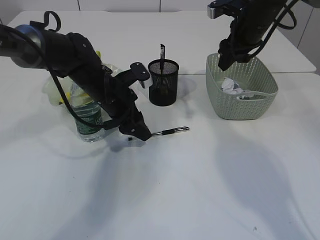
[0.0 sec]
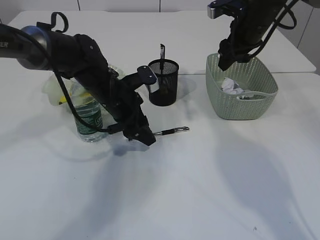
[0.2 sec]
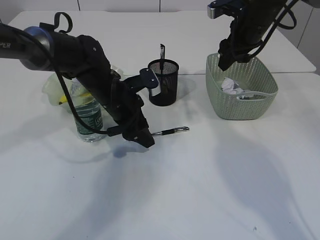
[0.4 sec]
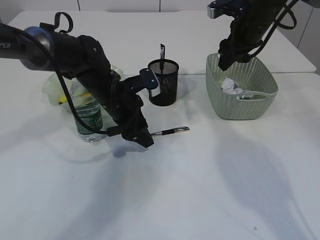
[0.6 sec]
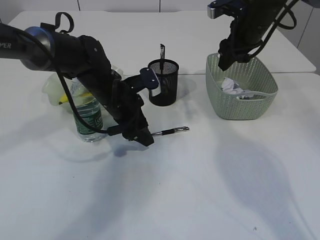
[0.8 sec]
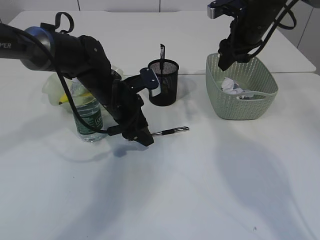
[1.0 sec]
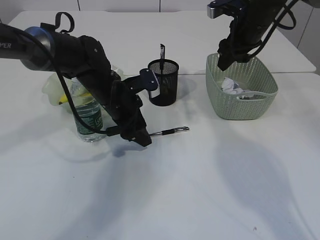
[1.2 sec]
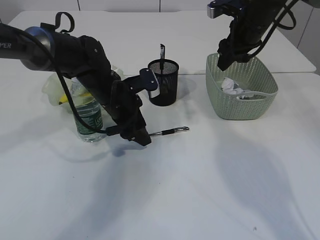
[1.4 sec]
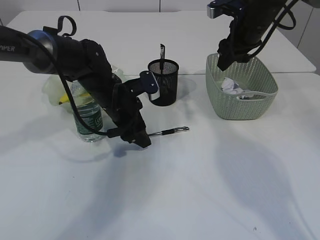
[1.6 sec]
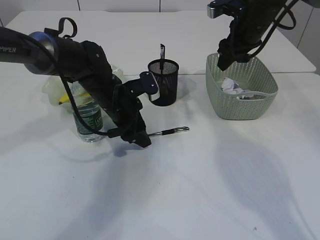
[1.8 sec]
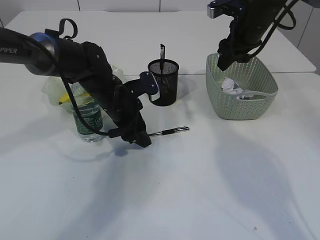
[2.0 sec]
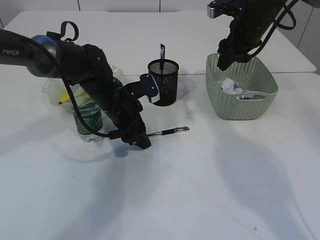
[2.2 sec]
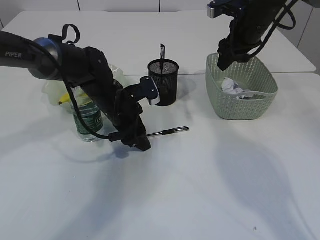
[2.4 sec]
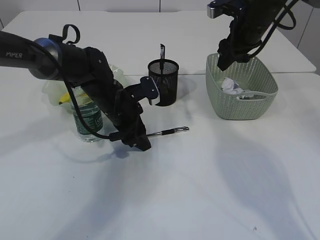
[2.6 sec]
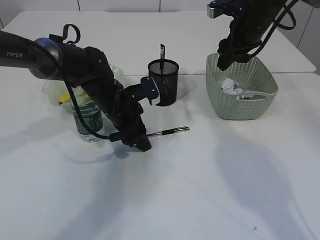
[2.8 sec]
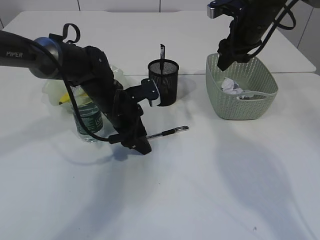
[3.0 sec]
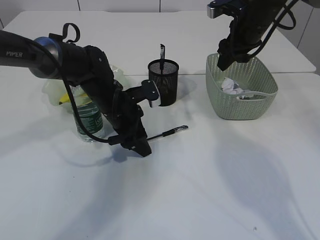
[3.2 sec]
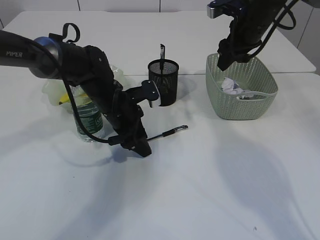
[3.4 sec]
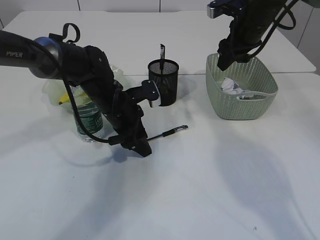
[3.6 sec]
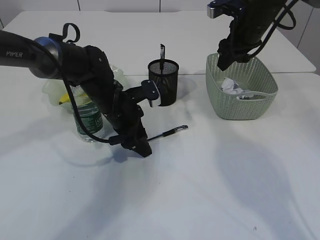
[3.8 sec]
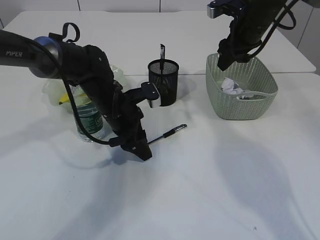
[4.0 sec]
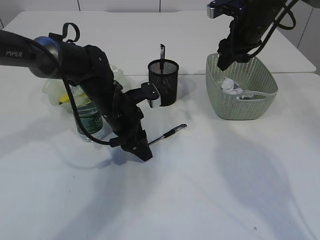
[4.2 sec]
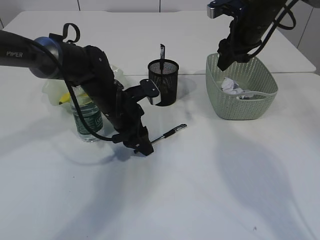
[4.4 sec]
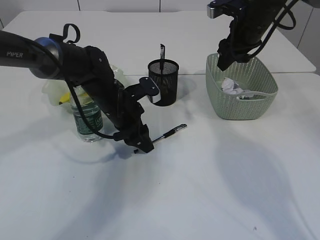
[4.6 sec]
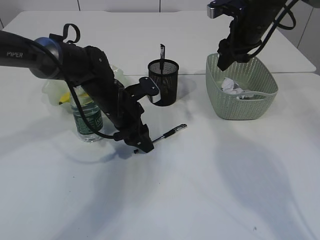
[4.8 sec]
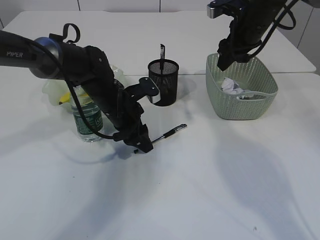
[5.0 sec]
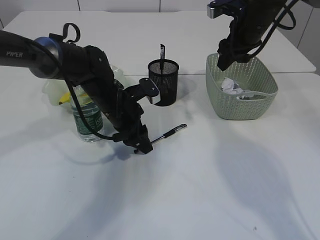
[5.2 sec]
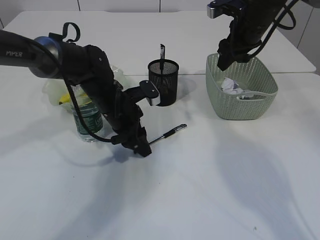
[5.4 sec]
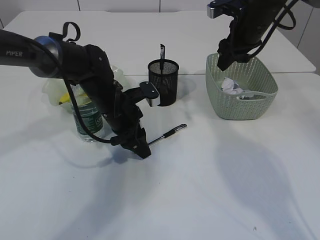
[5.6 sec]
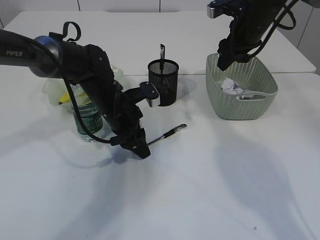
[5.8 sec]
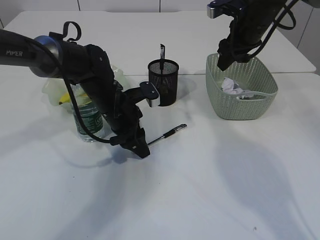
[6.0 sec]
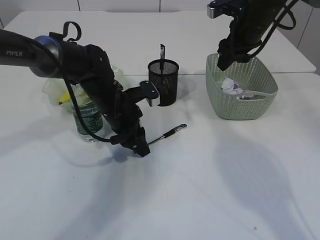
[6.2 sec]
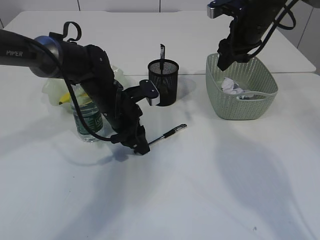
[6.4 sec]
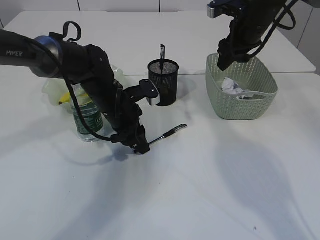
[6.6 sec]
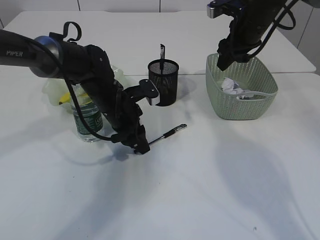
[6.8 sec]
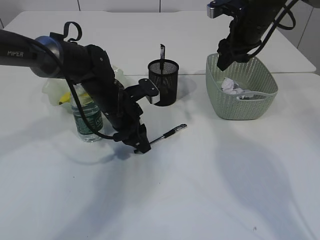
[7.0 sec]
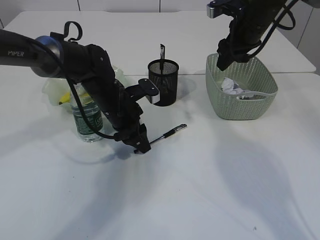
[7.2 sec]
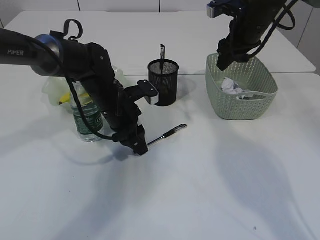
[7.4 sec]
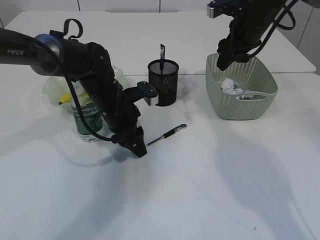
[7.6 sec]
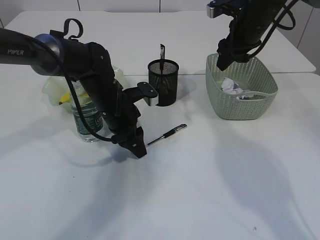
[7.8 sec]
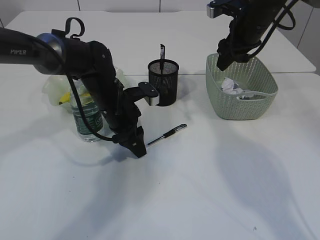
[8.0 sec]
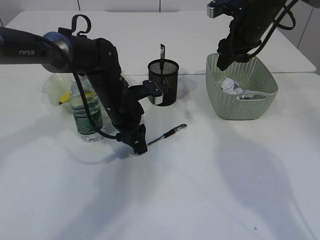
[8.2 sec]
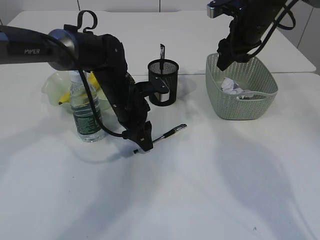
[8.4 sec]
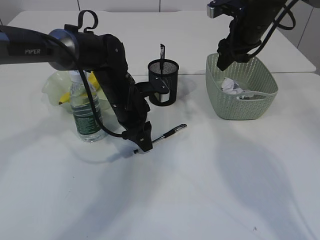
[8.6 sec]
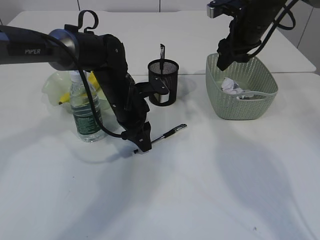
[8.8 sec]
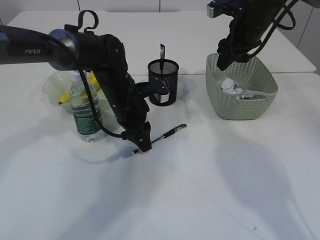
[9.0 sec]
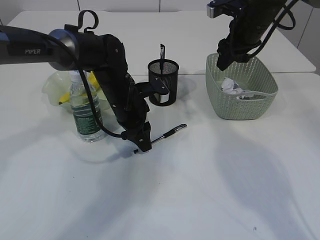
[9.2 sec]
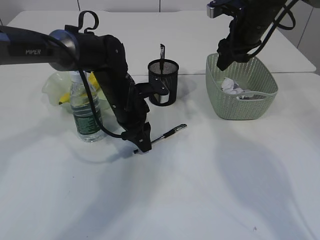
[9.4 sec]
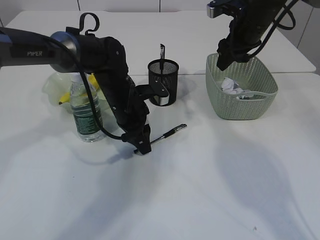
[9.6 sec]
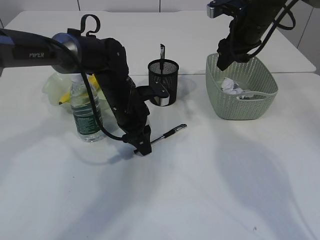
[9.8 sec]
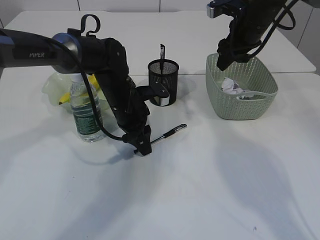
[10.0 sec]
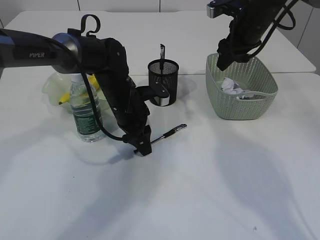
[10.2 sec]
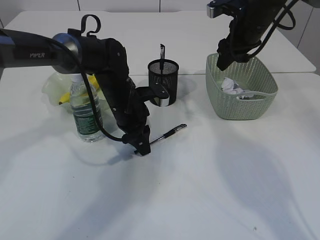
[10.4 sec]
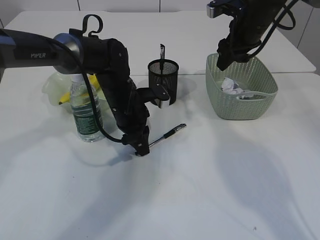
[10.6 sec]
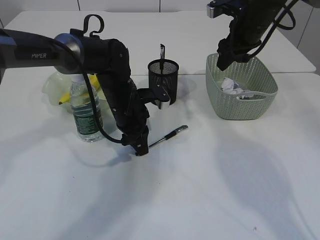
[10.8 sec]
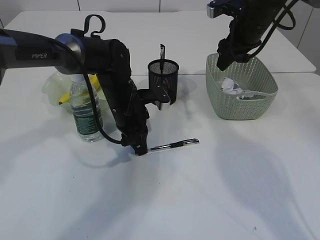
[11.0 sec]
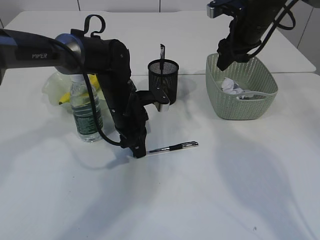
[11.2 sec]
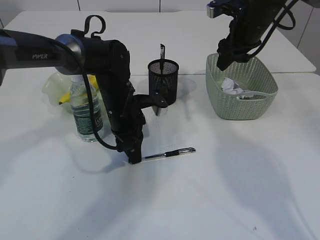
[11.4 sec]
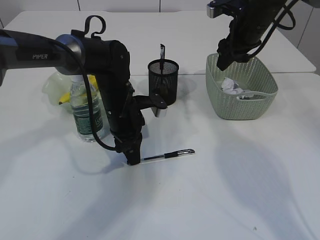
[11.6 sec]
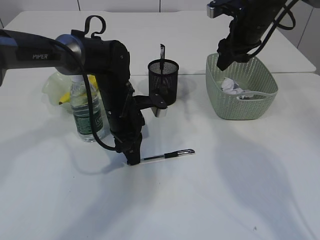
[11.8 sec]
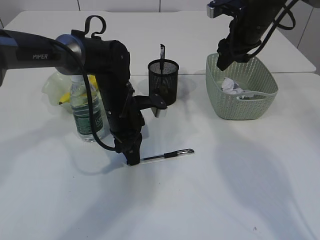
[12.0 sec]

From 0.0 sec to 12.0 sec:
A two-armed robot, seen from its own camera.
From 0.0 sec to 4.4 sec: There are only small adjustments of the grippers.
From 4.4 sec to 6.0 sec: Neither gripper changes place.
From 6.0 sec to 9.0 sec: The grippers move only a little.
From 9.0 sec to 10.4 sec: The two grippers keep their place.
From 10.4 sec to 12.0 sec: There are only small adjustments of the grippers.

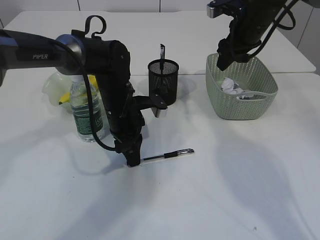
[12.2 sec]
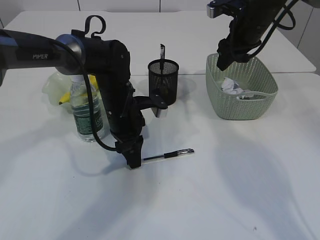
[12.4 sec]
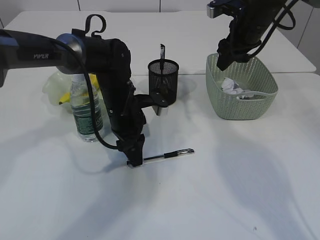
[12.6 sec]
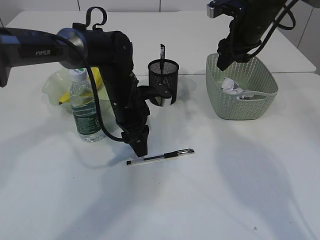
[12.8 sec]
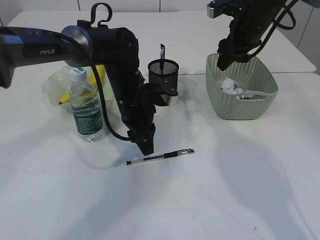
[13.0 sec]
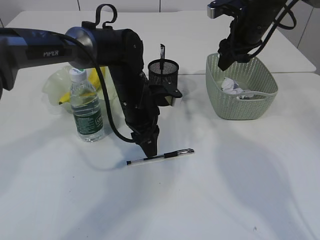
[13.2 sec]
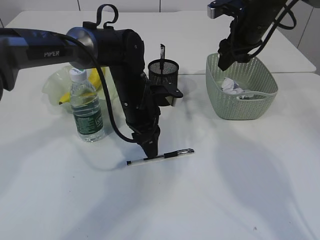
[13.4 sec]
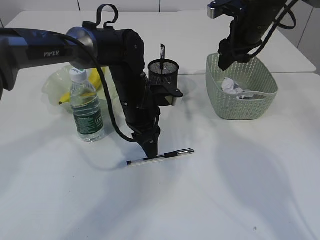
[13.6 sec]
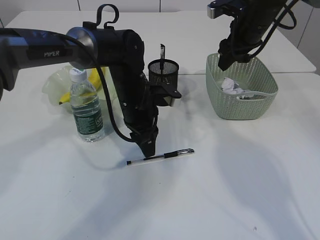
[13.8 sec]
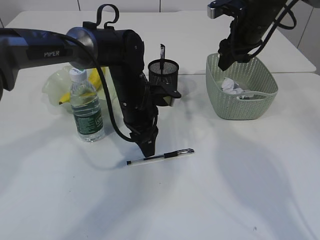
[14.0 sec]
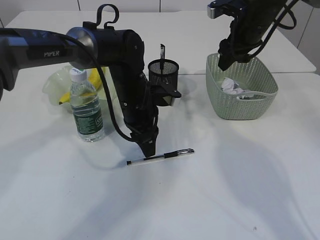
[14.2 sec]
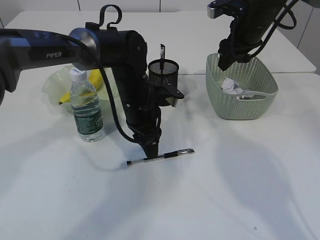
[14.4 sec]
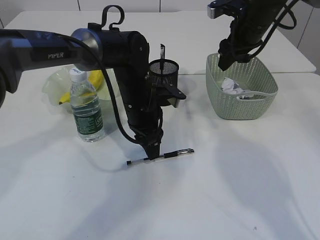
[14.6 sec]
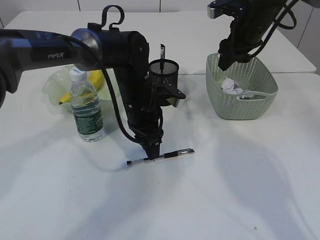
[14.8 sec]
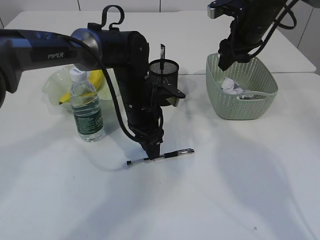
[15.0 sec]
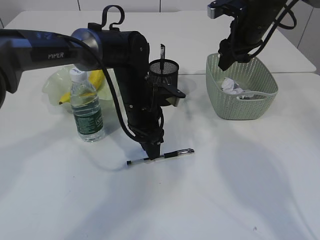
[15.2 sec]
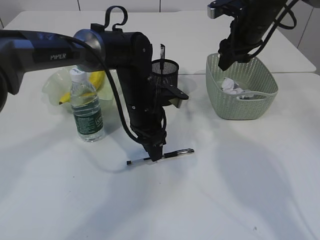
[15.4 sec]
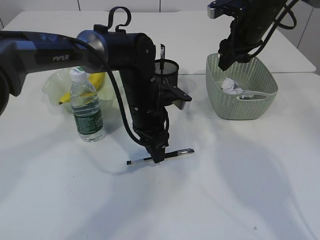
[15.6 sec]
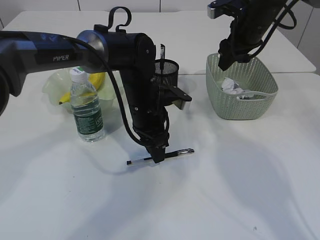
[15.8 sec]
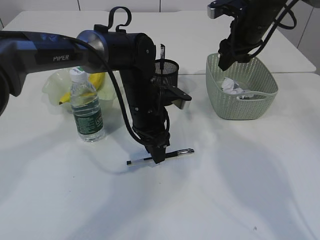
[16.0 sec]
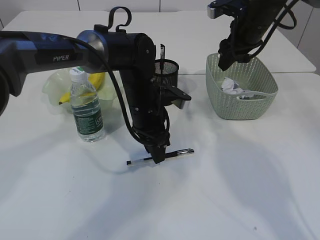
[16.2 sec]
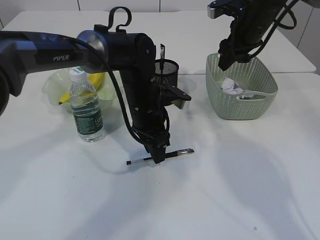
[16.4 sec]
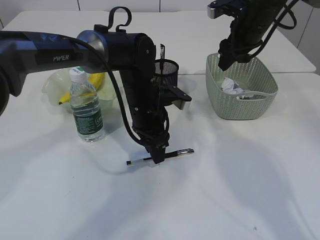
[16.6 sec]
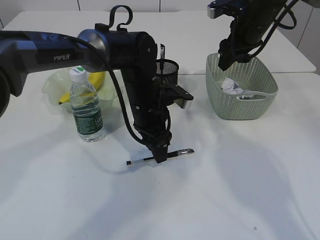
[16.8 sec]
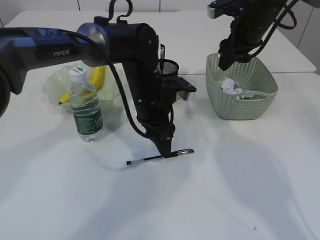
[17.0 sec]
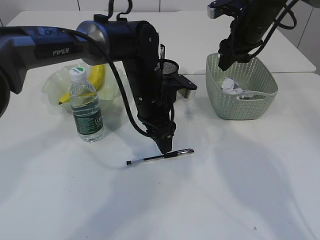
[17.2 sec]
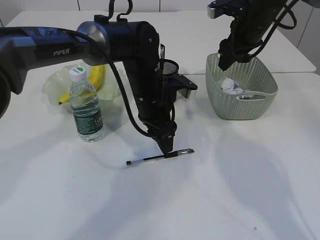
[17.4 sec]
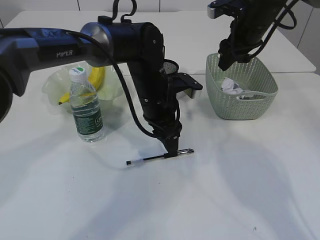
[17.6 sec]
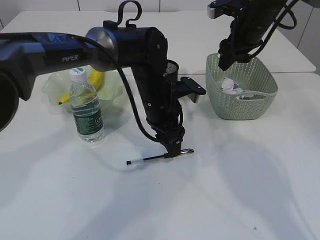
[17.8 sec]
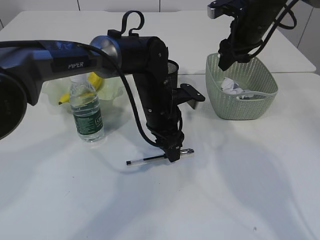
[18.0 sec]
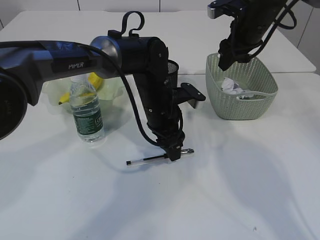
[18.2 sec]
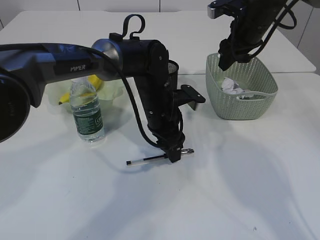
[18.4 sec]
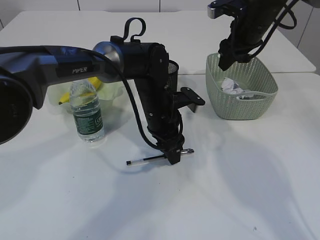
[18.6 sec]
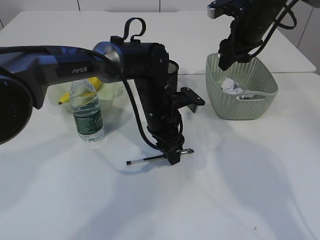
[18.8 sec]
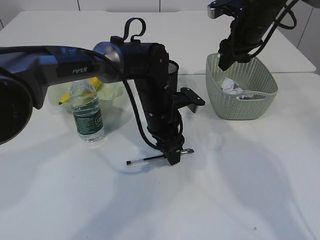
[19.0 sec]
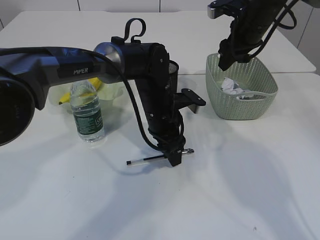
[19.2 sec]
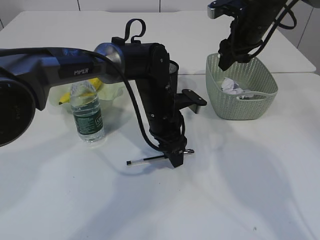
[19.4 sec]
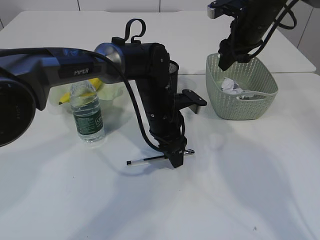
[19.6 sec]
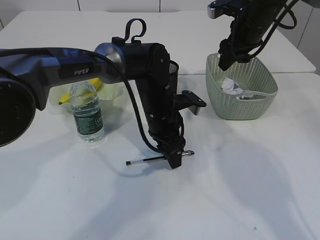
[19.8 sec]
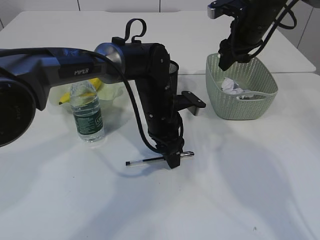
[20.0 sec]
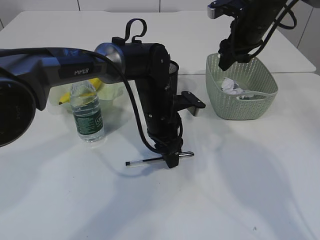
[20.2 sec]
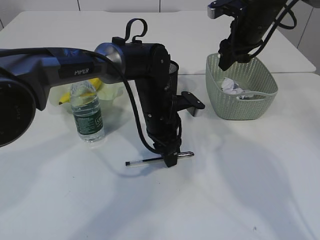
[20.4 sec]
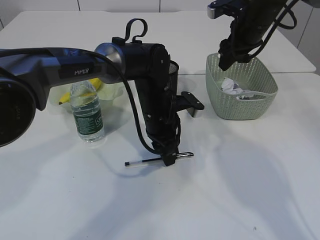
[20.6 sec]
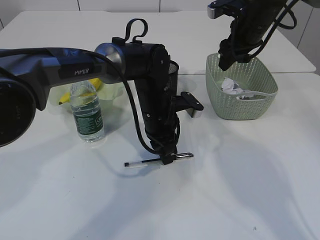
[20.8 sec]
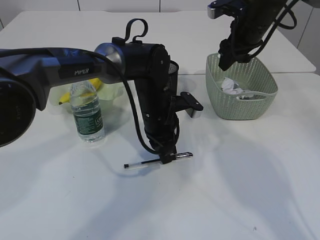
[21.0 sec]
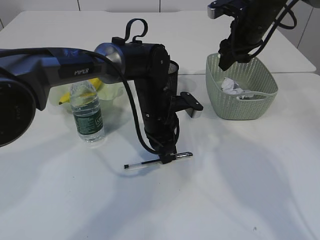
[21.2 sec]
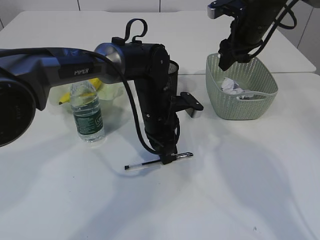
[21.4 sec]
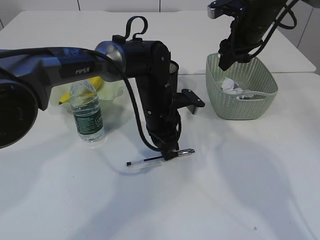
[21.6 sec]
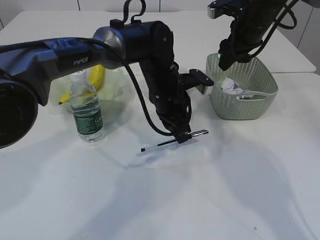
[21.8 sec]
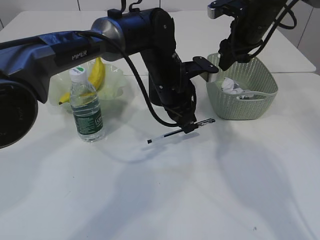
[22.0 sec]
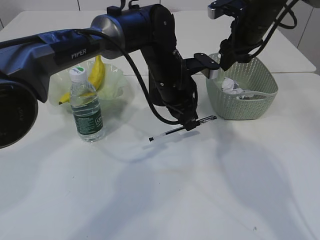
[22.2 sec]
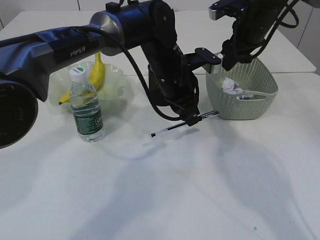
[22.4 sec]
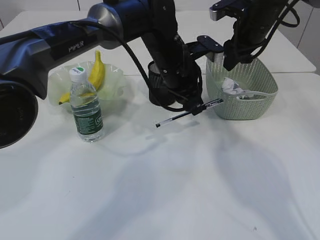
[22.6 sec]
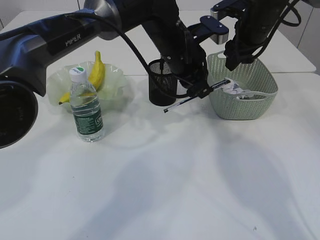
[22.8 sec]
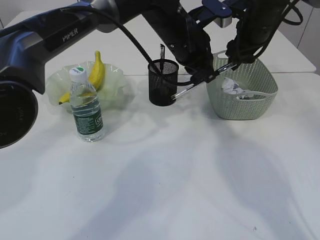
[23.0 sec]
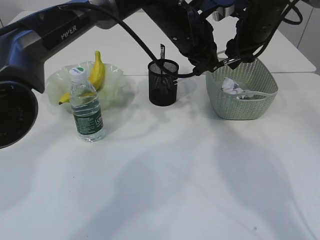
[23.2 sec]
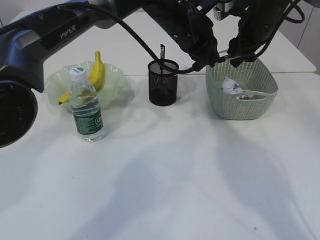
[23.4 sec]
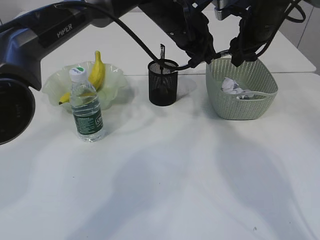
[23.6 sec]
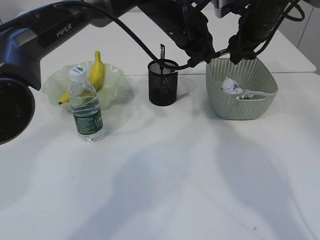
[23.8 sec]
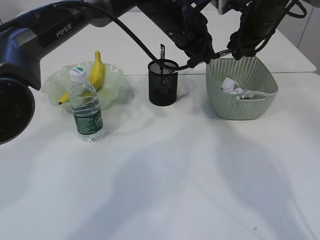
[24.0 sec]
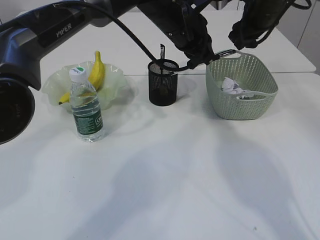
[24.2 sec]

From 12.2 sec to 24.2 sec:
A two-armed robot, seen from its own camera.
Step, from 12.2 sec to 22.6 sec: Pick up the pen with left arm.
From 12.2 sec to 15.2 sec: The grippers stay close to where they were, moving slightly.
From 15.2 sec to 16.6 sec: The two grippers keep their place.
From 16.6 sec to 19.8 sec: The grippers stay close to where they were, moving slightly.
From 19.8 sec to 21.2 sec: The left gripper closes.
From 21.2 sec to 22.6 sec: The left gripper heads upward, covering roughly 10 cm.
From 22.6 sec to 24.2 sec: The left gripper travels upward by approximately 5 cm.
